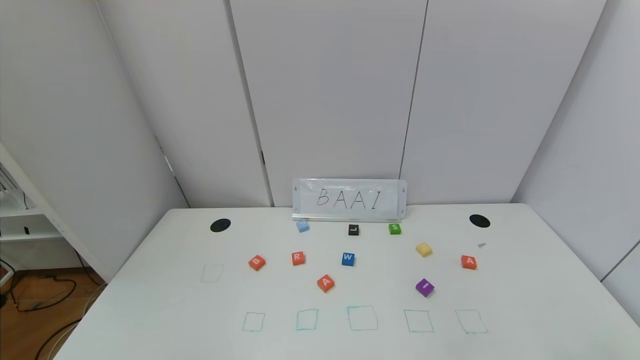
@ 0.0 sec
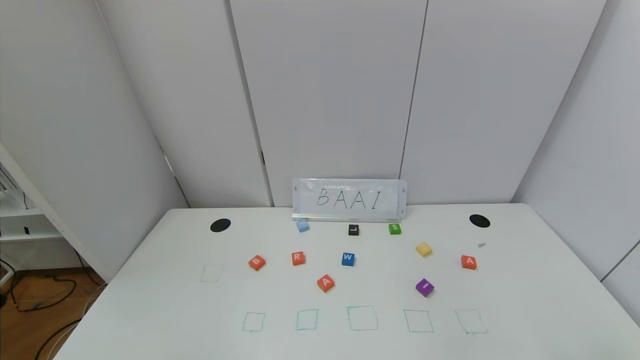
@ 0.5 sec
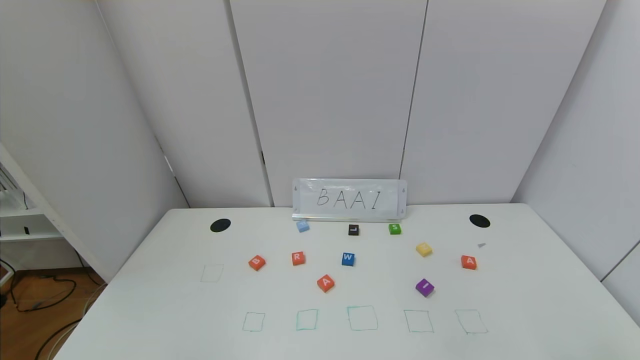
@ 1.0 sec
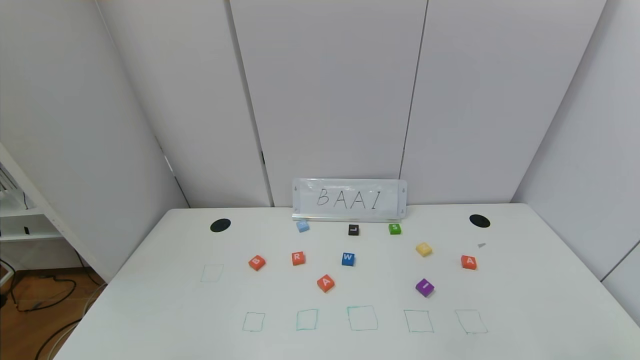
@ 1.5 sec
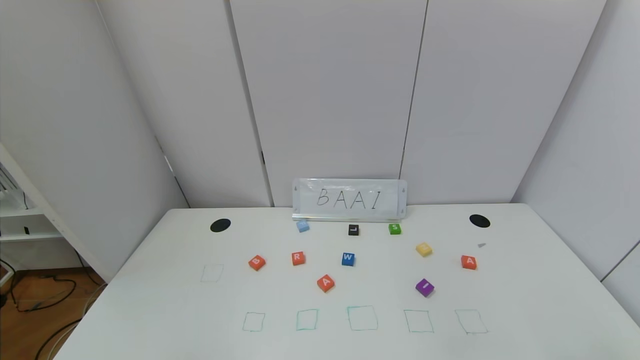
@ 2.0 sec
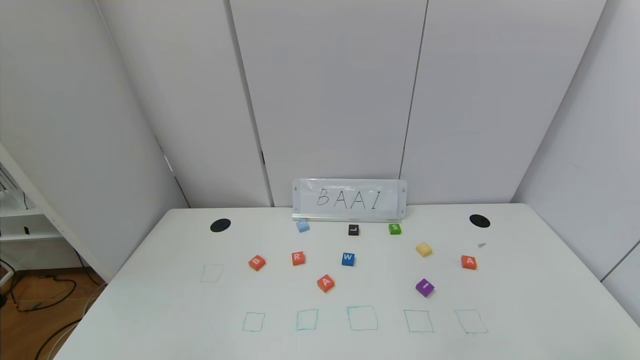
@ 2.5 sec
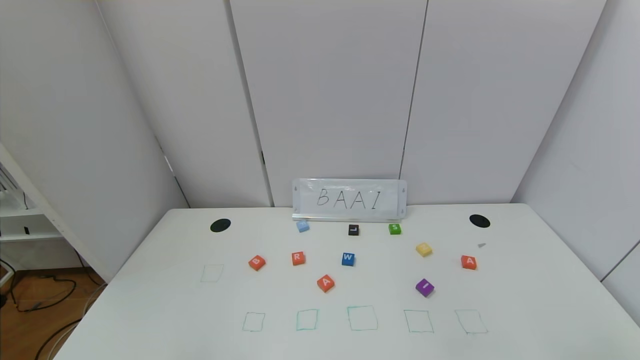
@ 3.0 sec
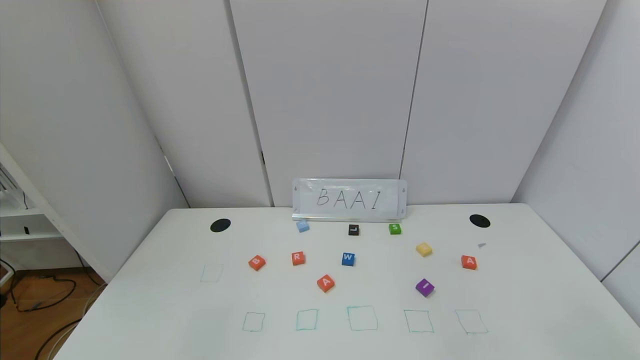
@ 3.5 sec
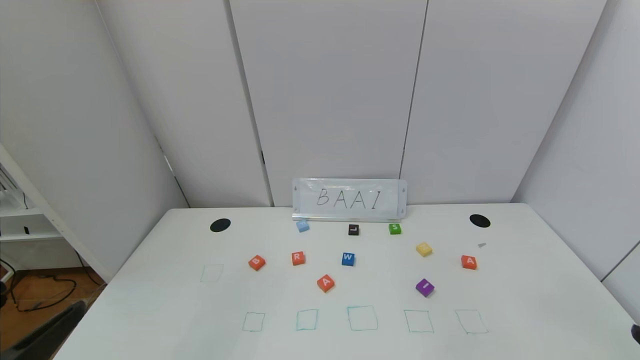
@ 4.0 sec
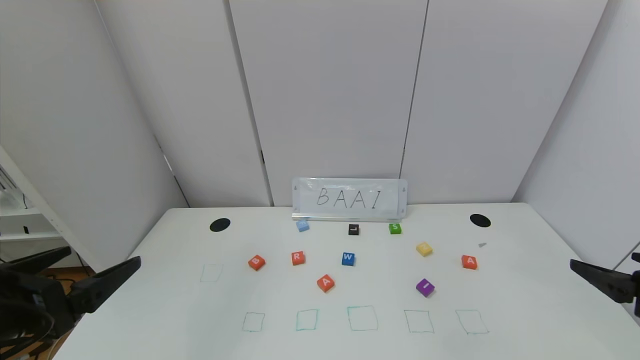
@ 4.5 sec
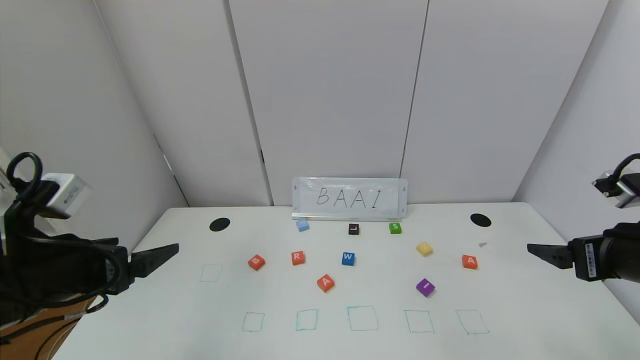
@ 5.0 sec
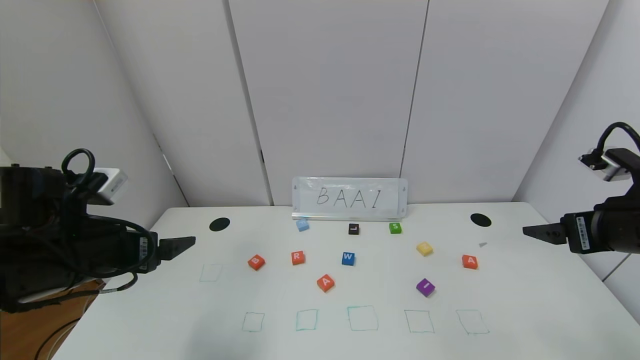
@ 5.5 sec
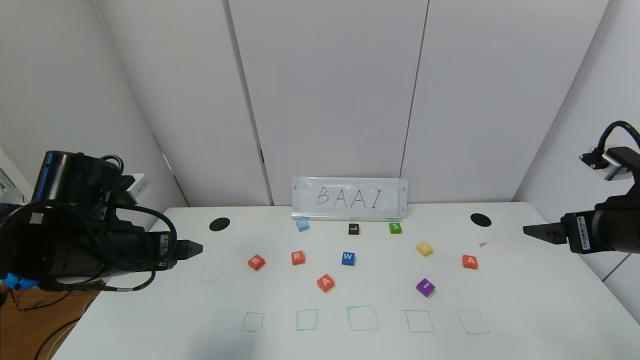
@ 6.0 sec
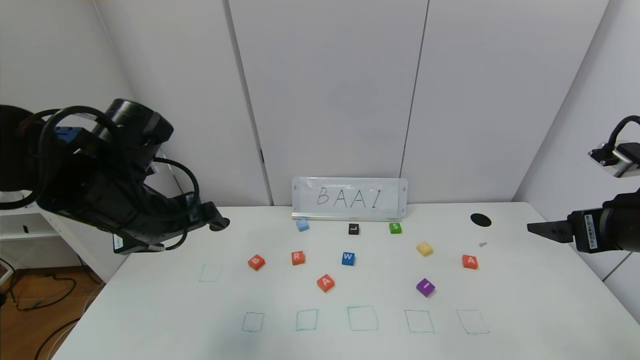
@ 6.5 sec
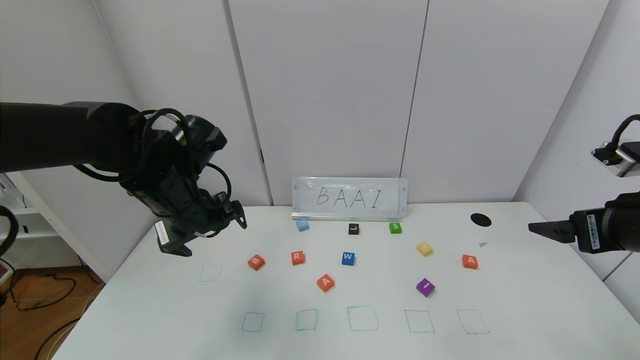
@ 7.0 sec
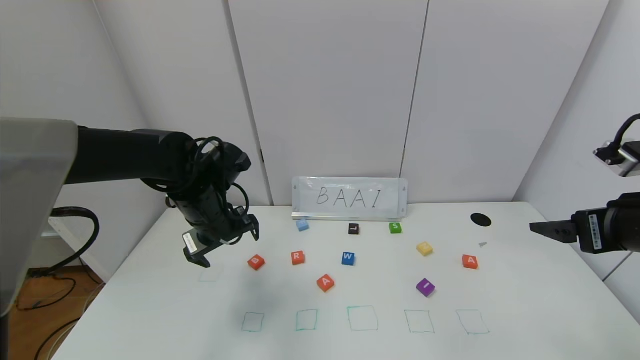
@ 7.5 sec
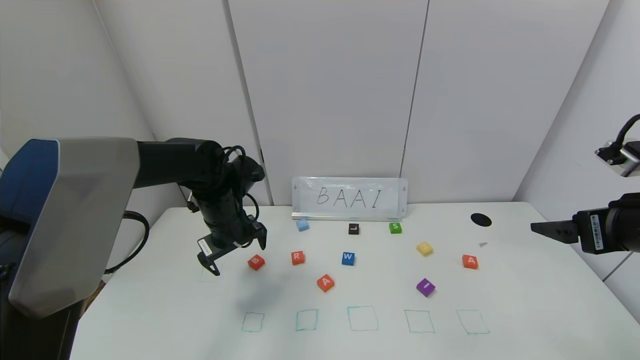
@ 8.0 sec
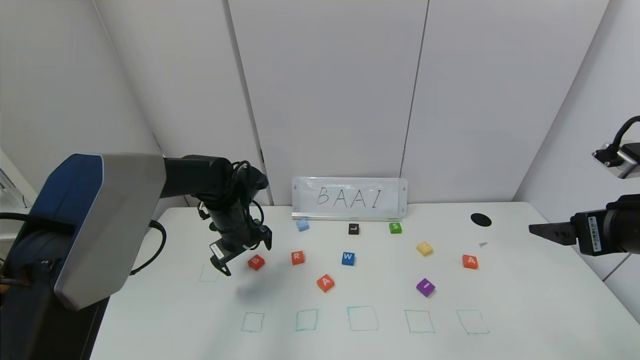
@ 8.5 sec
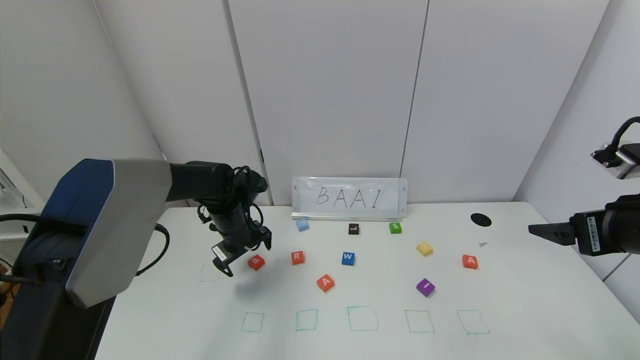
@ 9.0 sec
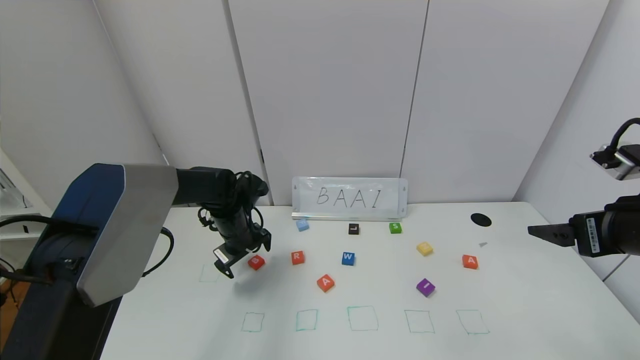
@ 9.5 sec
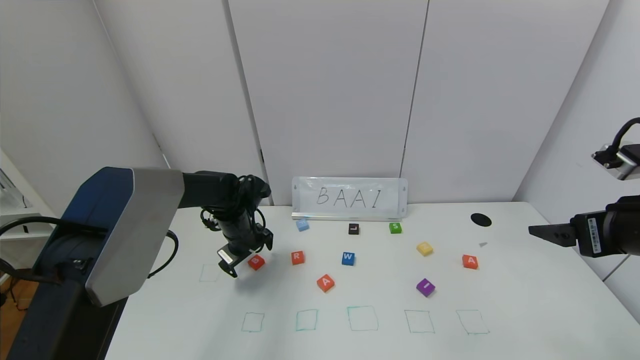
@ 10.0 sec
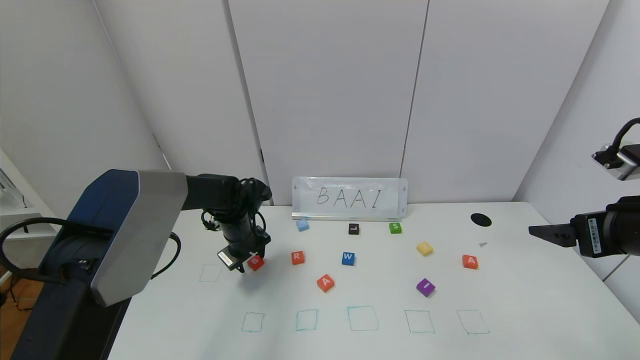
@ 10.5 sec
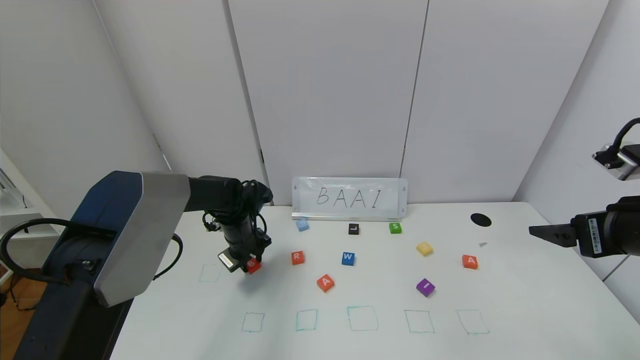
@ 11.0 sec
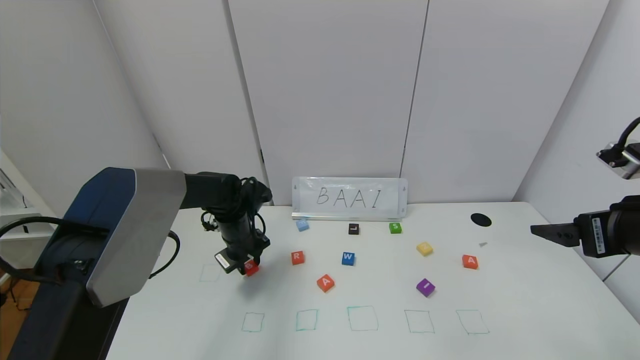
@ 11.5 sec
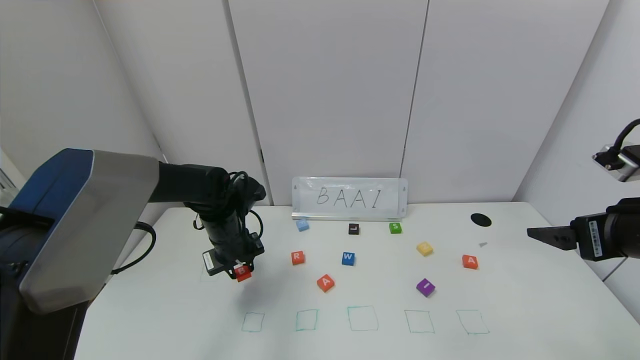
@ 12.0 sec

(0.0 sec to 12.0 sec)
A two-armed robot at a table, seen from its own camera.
Task of the whole recording: use the gripper to find blocks with the letters b, a, a, and i on the table and arrange them into BAAI, then find r and N and turn the arranged baai into brian.
0.0 sec - 2.0 sec: Both grippers stay put.
2.0 sec - 4.0 sec: The left gripper shifts roughly 15 cm upward and forward.
4.0 sec - 6.0 sec: Both grippers move forward, about 20 cm.
6.0 sec - 8.0 sec: The left gripper goes about 15 cm forward and to the right.
8.0 sec - 10.0 sec: The left gripper moves downward, about 5 cm.
10.0 sec - 12.0 sec: The left gripper shifts by roughly 5 cm, and closes up.

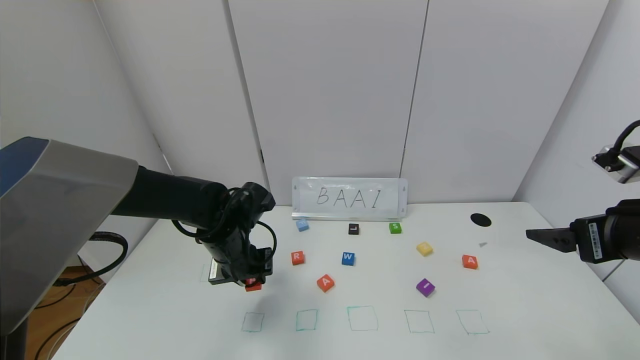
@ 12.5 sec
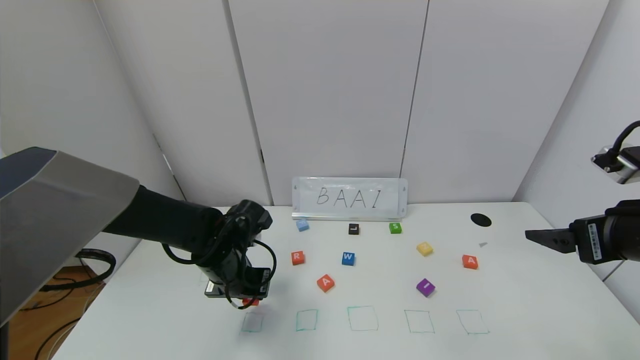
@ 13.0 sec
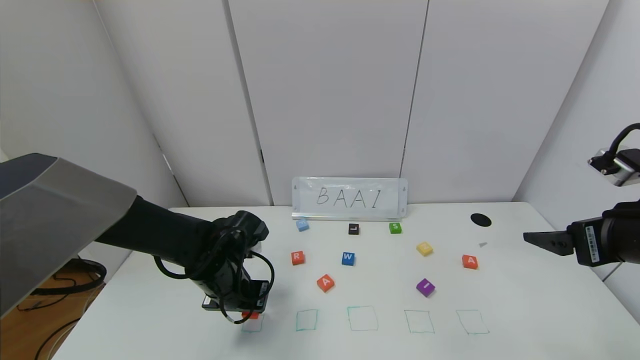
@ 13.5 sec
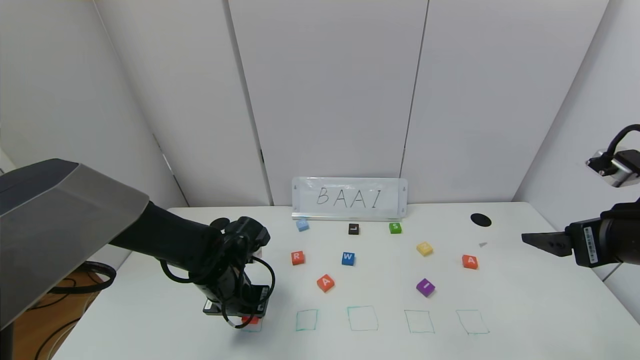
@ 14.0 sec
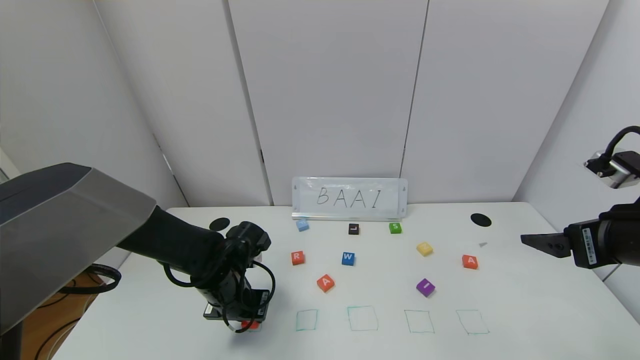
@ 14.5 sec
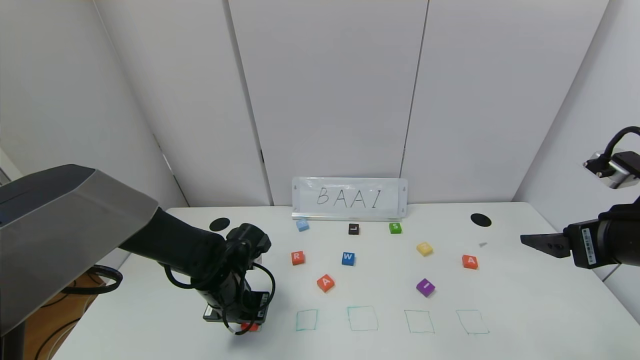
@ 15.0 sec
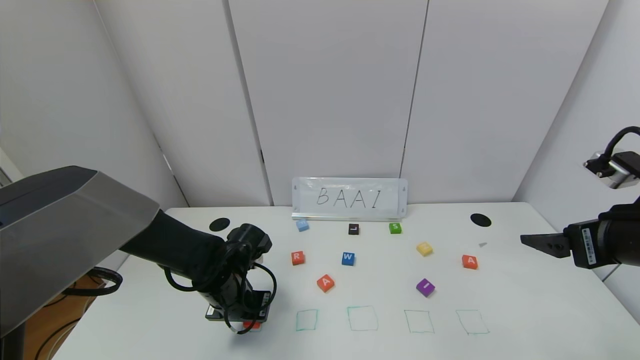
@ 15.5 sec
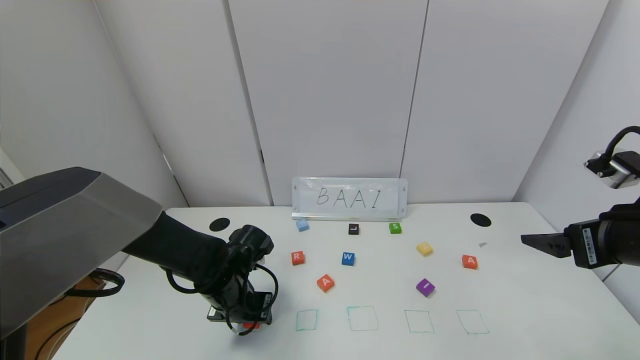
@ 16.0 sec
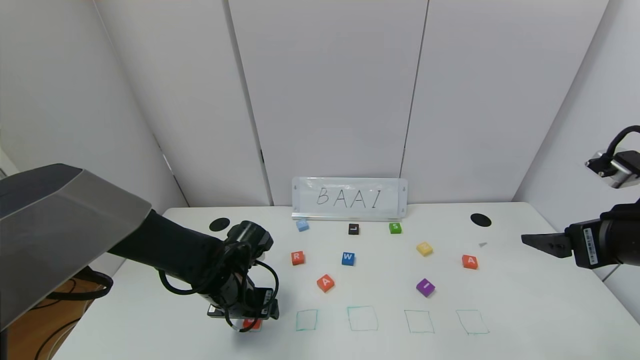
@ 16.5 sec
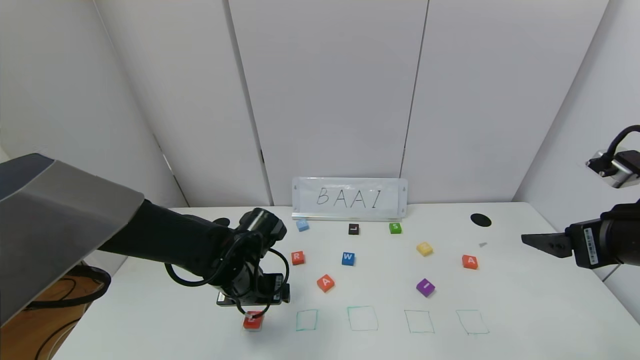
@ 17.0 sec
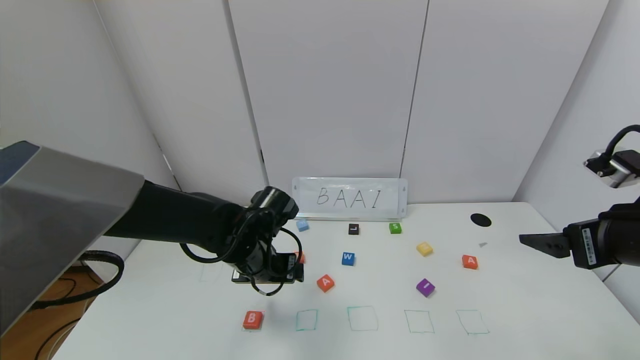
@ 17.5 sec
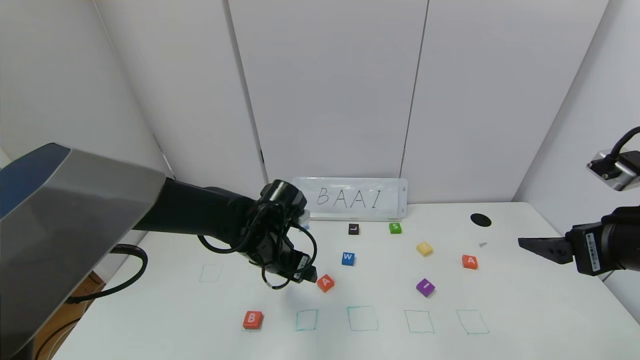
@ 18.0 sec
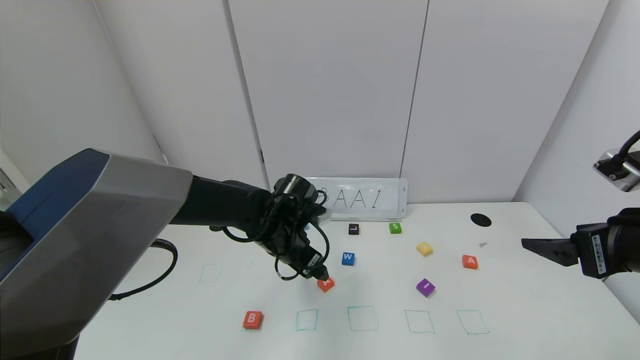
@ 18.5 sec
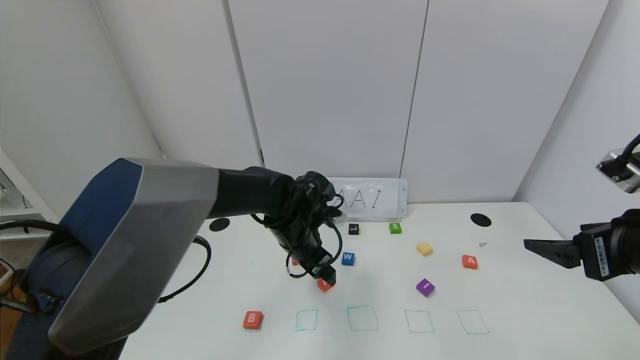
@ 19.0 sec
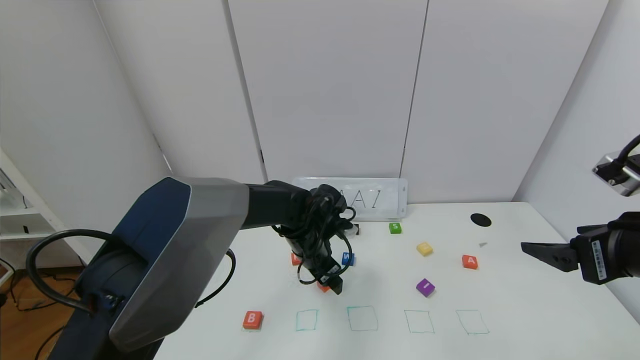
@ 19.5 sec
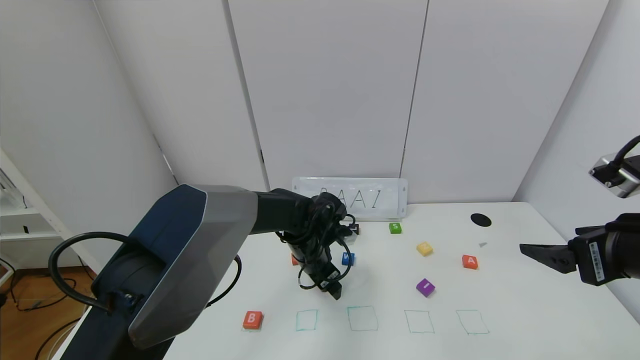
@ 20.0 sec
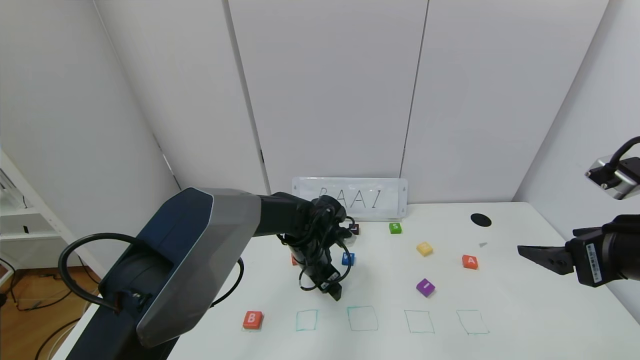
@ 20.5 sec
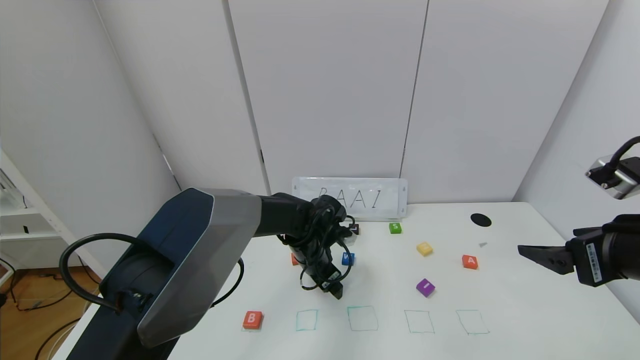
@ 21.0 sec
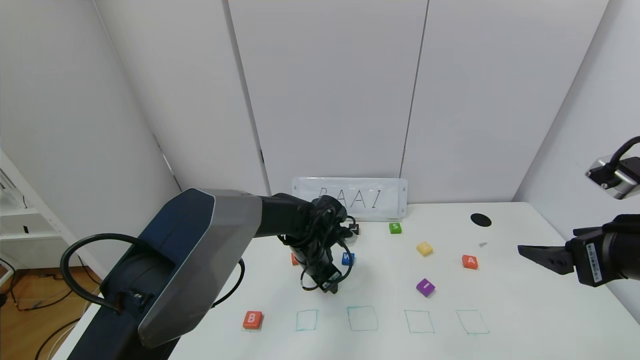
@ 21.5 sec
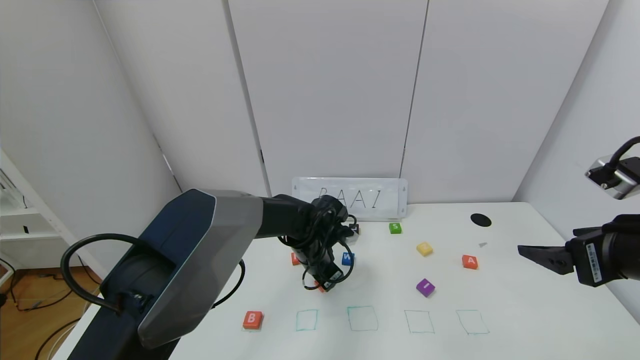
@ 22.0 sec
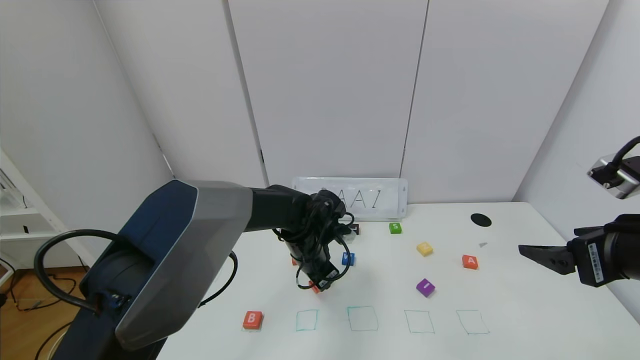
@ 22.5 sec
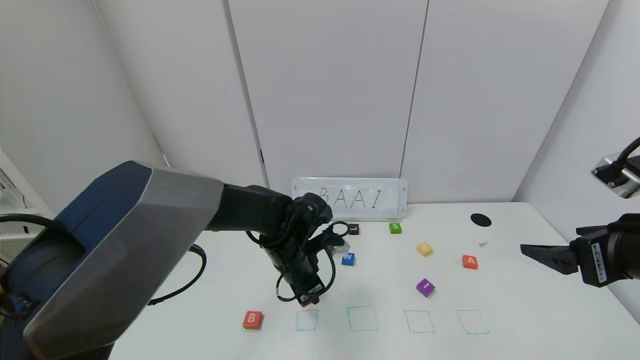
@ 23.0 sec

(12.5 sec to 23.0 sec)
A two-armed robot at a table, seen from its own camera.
Task of the whole recording: use the gripper to find blocks with the letters b, a, a, and i on the table and arrange them into BAAI, then find r and N and turn the arranged baai into brian.
Step, 12.5 sec - 16.0 sec: Place the block B in the first location.
12.5 sec - 14.5 sec: The left gripper travels downward by approximately 5 cm.
14.5 sec - 16.5 sec: The left gripper opens its fingers.
16.5 sec - 19.0 sec: The left gripper travels to the right, forward and upward by roughly 15 cm.
19.0 sec - 21.0 sec: The left gripper heads downward, covering about 5 cm.
21.0 sec - 23.0 sec: The left gripper moves approximately 5 cm, and closes.
